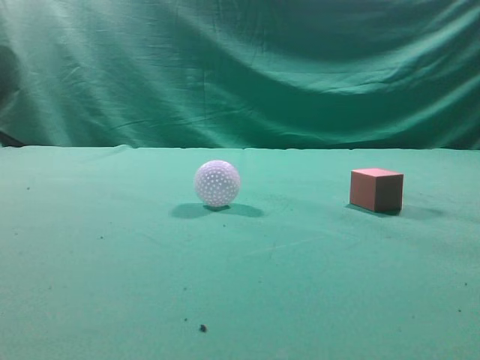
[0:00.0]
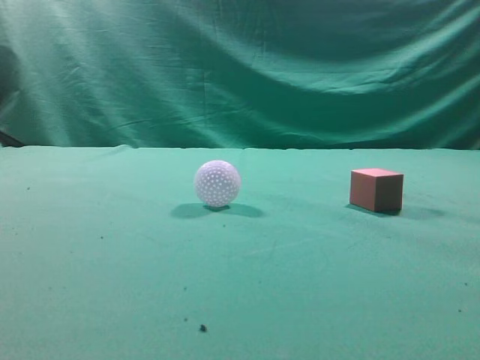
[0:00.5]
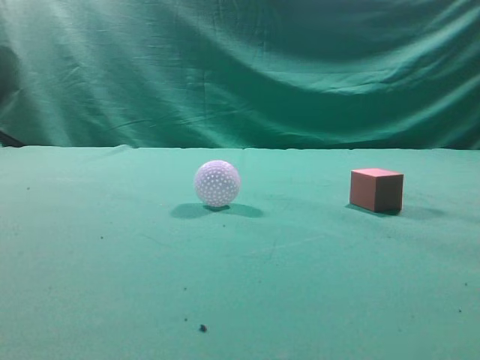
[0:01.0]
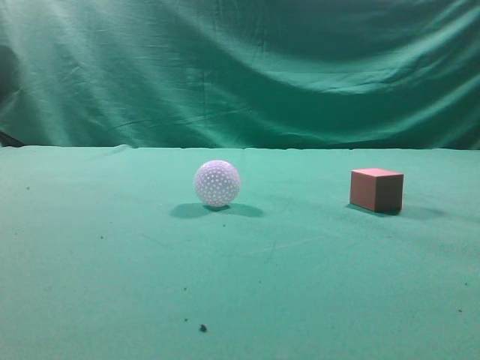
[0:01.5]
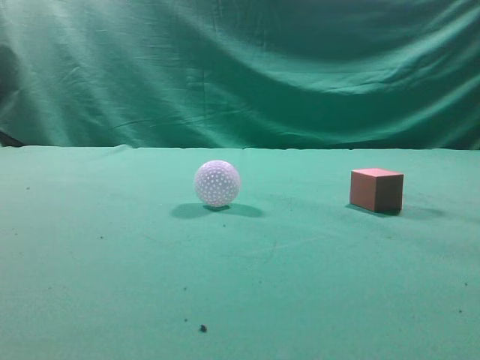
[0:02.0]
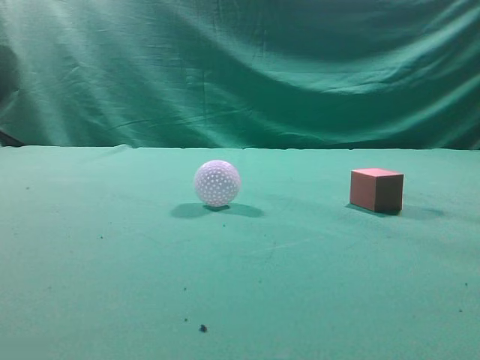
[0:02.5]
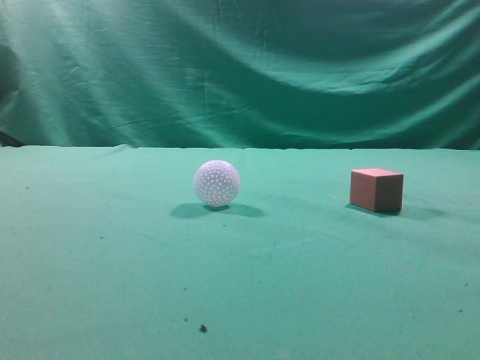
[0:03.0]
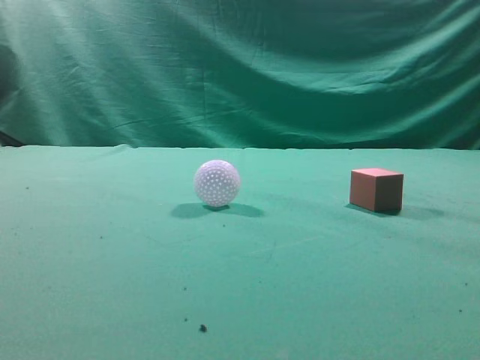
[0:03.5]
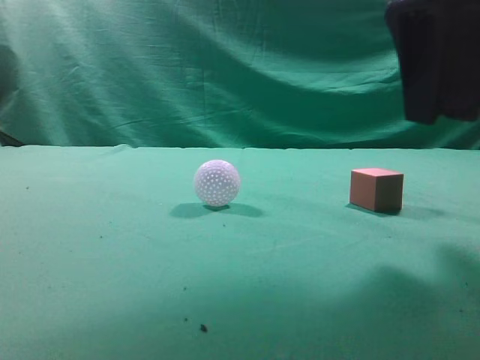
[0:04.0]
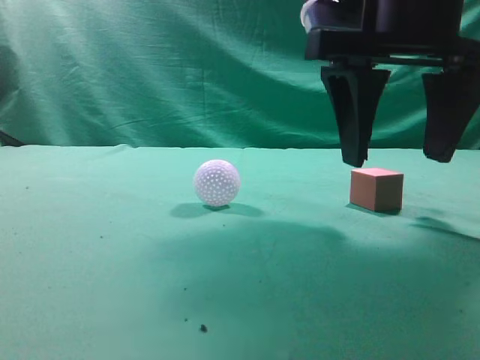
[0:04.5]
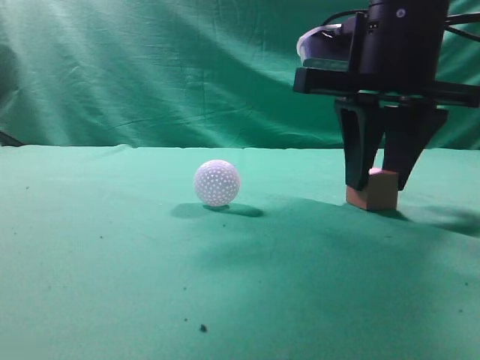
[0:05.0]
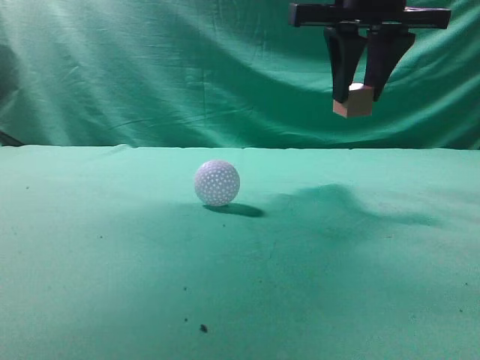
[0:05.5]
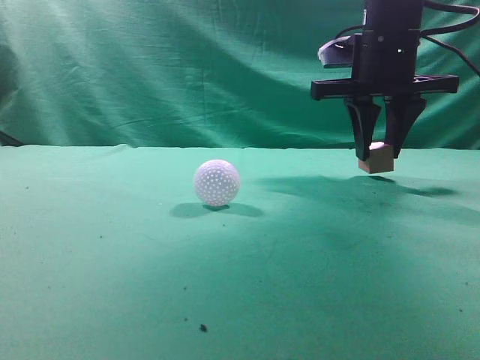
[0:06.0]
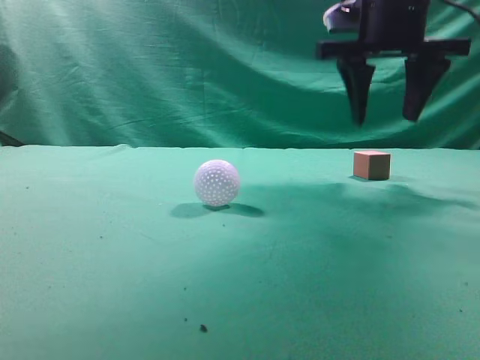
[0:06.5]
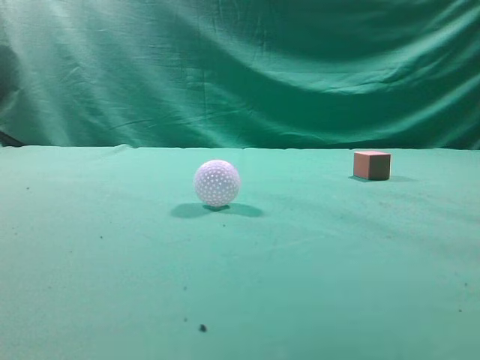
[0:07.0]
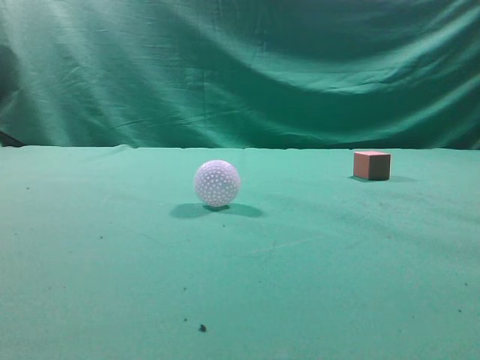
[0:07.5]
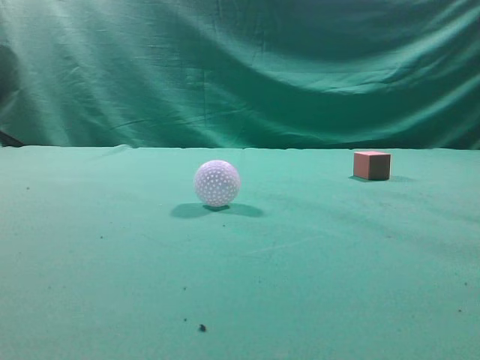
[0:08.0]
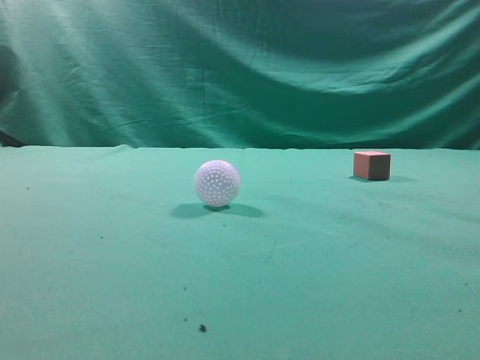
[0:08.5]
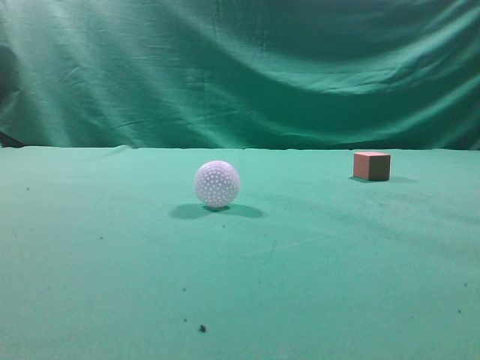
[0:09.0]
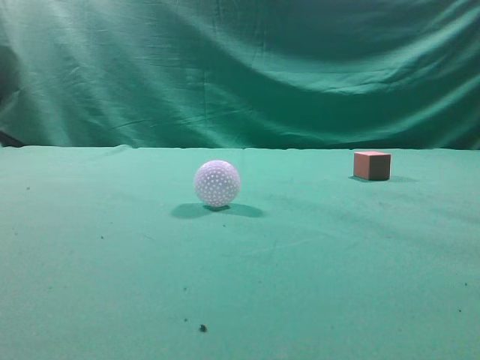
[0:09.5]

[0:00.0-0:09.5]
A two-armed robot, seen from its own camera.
Task of the whole recording: pick up the cube block and place it in another position on the table.
Step, 0:00.0 to 0:05.0: Pick up the small cube.
Step, 0:05.5 to 0:06.0: Place the small cube on the ahead of the table.
0:02.0 to 0:04.0: The right gripper moves forward, to the left and downward, some 25 cm, and opens up.
0:04.0 to 0:05.5: The right gripper is displaced forward by some 15 cm.
0:05.5 to 0:07.5: The right gripper heads backward, upward and to the right, covering approximately 30 cm, and closes.
